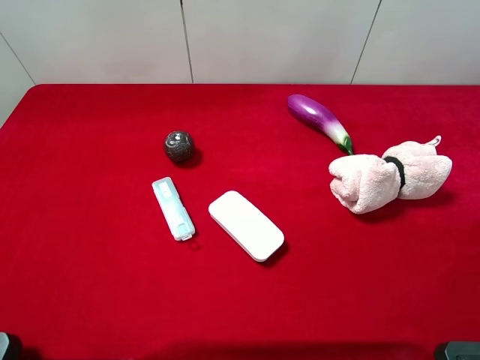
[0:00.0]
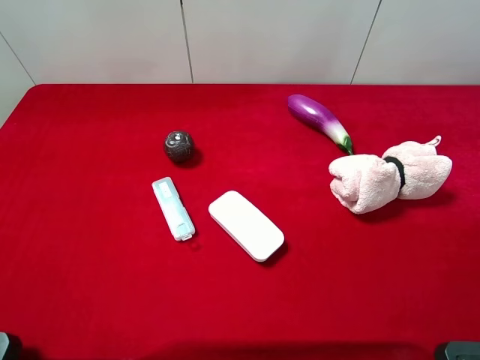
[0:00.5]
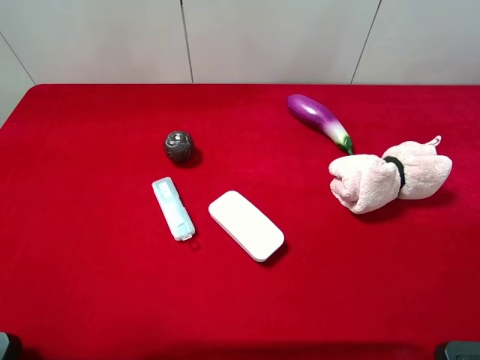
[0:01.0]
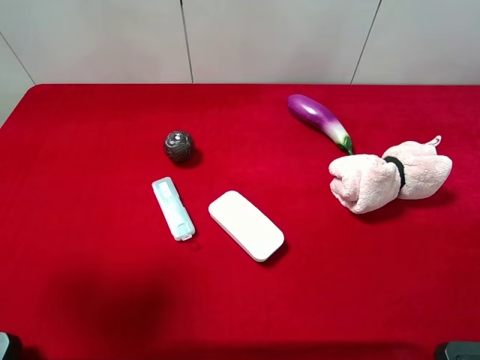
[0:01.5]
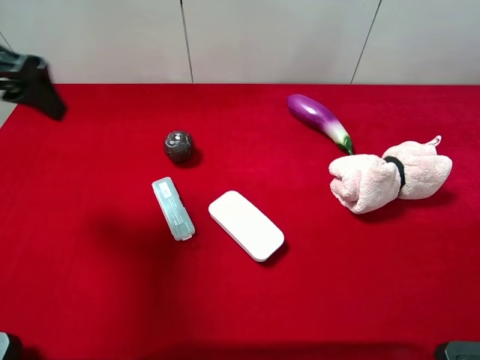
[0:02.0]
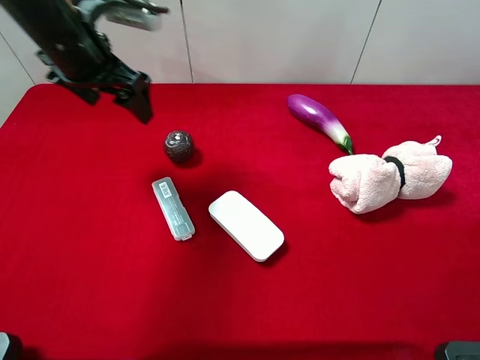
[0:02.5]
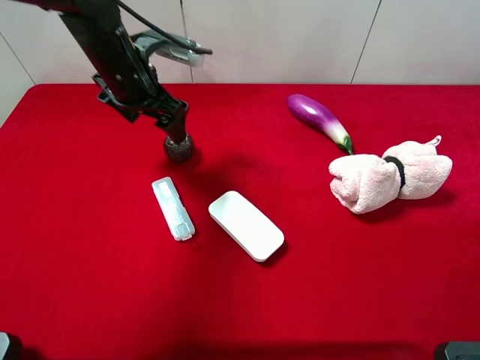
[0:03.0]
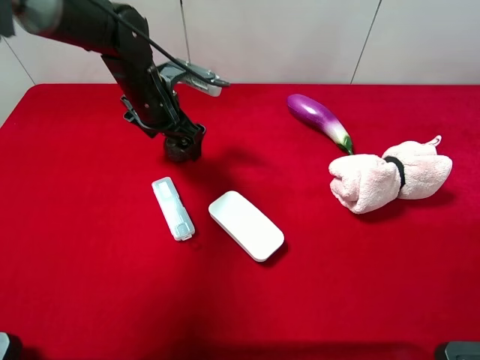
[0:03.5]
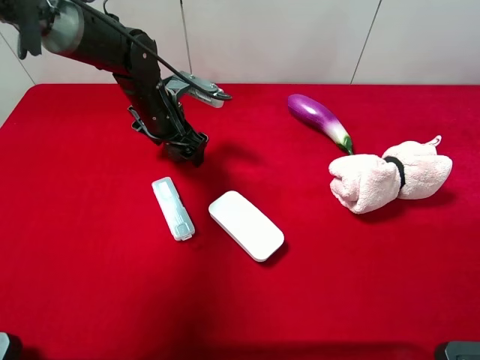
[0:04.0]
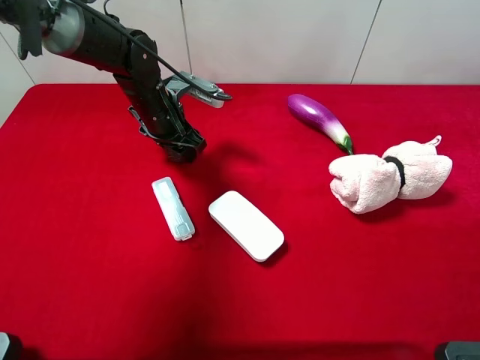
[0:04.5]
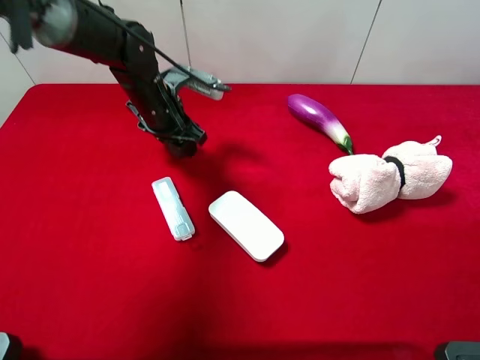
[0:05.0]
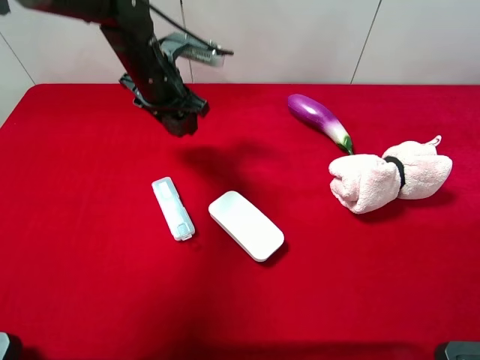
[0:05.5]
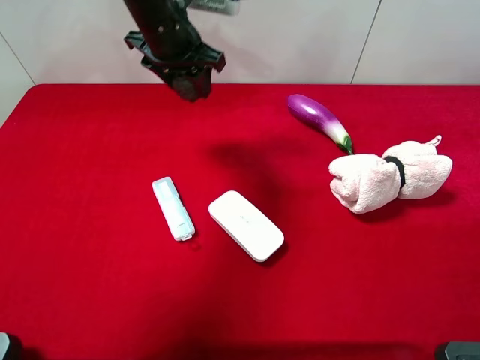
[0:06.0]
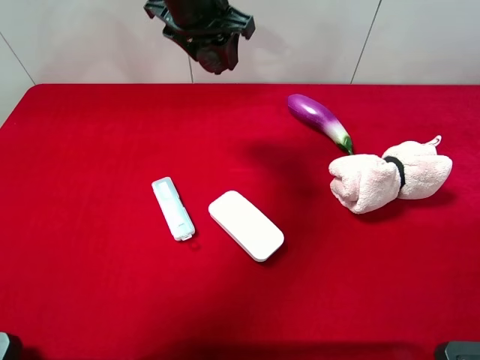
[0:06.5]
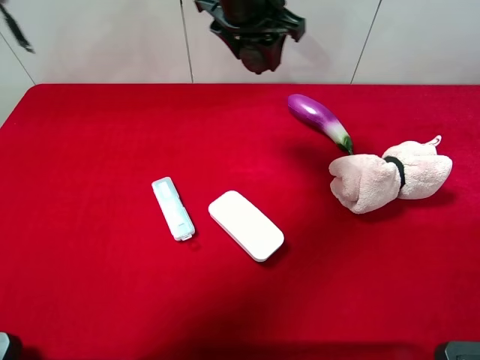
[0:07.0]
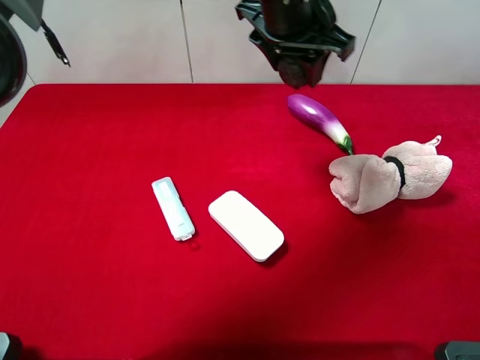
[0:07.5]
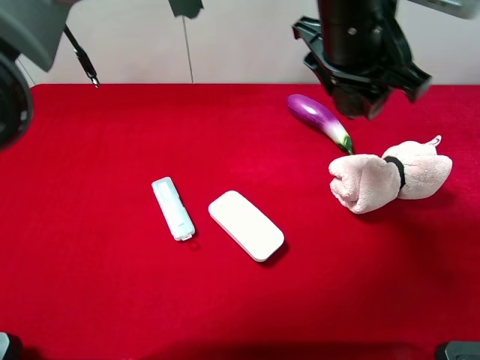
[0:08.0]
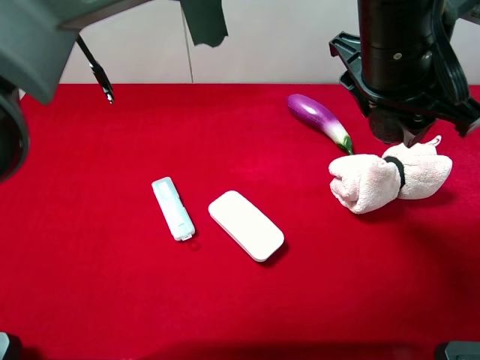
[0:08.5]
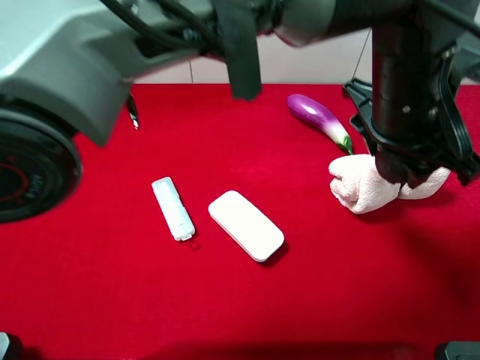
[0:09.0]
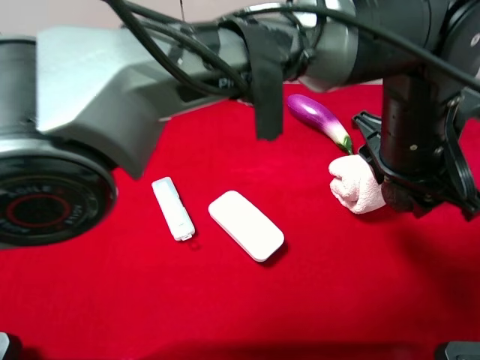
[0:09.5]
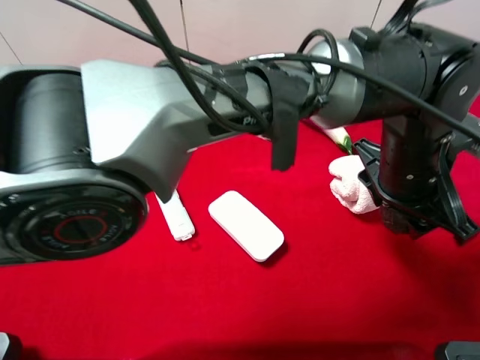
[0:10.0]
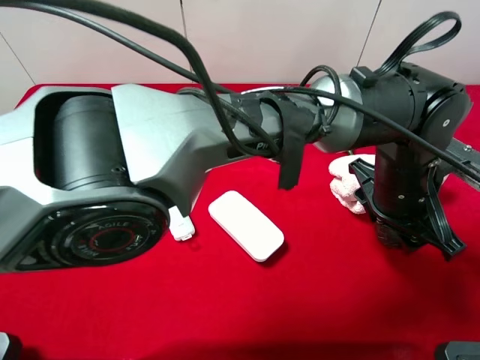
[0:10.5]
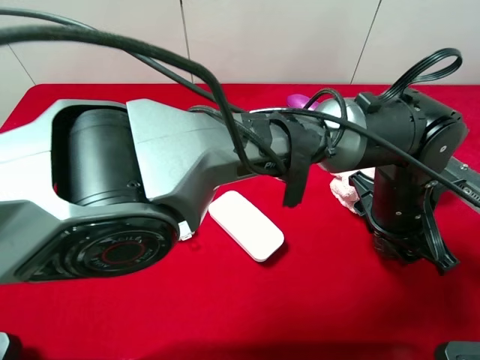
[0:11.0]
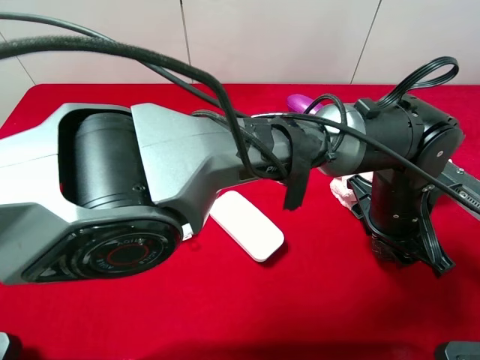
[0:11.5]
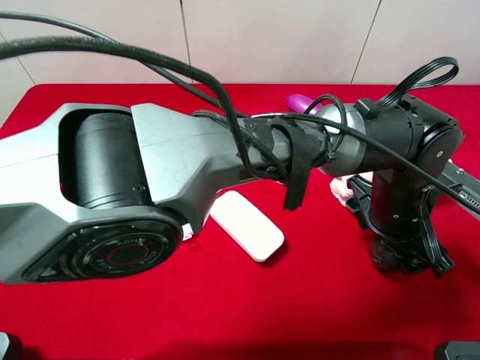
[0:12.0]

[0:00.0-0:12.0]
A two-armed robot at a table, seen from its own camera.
Task of the whole recording: the gripper move the object.
Step, 0:00.0 to 0:04.0: Grasp the mangosteen with the left gripper.
0:00.0 to 0:02.0: The left gripper is displaced forward by roughly 25 cm.
0:02.0 to 0:04.0: The left gripper shifts approximately 25 cm downward, to the right and forward.
0:04.0 to 0:06.0: The left gripper heads upward, covering roughly 15 cm, and closes.
0:06.0 to 0:08.0: The left gripper moves to the right and backward, about 25 cm.
0:08.0 to 0:10.0: The left gripper goes roughly 15 cm downward, to the right and backward.
0:10.0 to 0:12.0: The left gripper travels downward by approximately 5 cm, and opens.

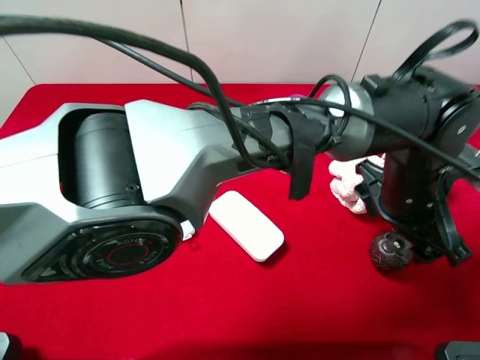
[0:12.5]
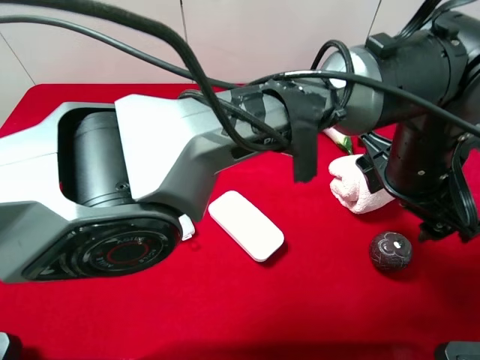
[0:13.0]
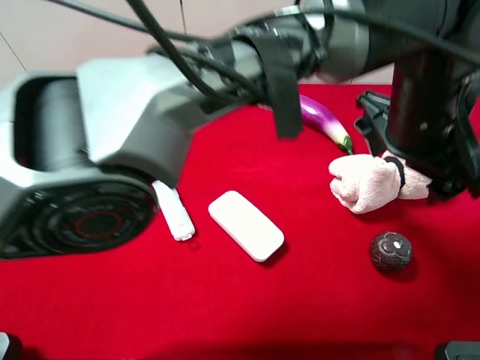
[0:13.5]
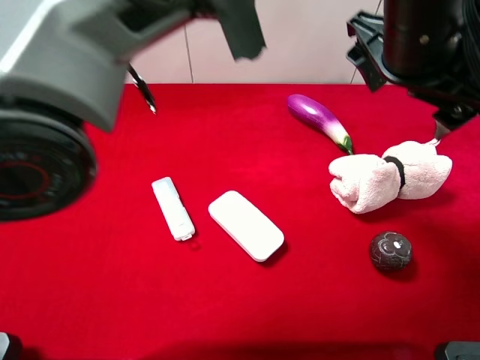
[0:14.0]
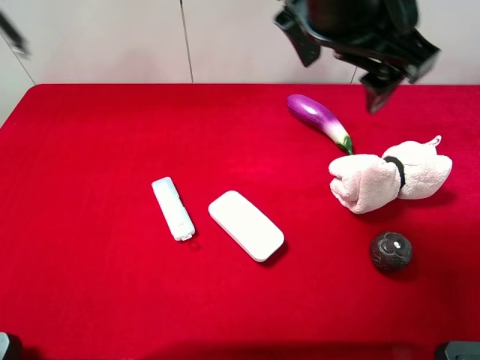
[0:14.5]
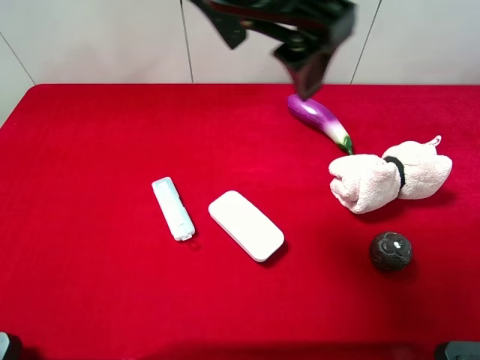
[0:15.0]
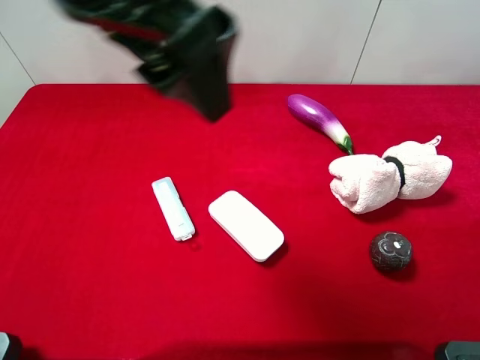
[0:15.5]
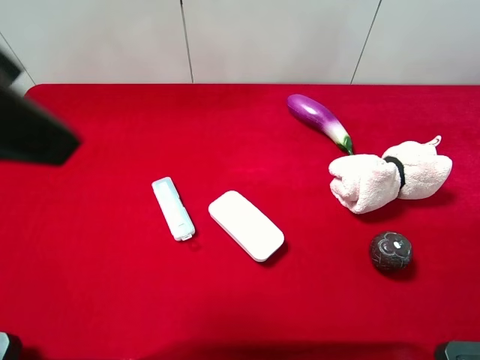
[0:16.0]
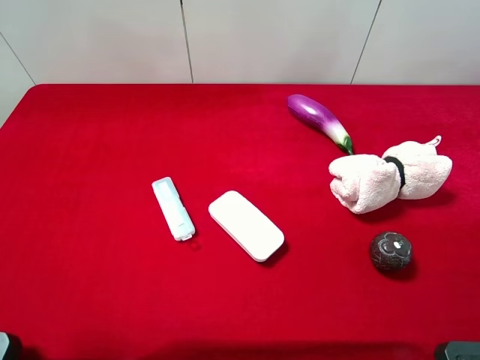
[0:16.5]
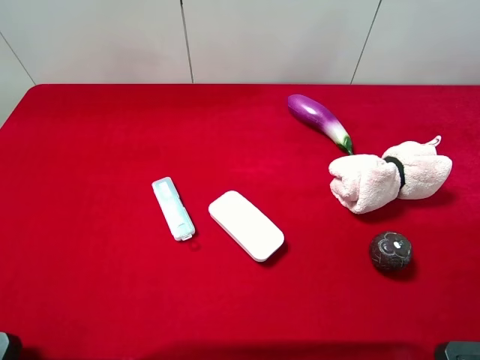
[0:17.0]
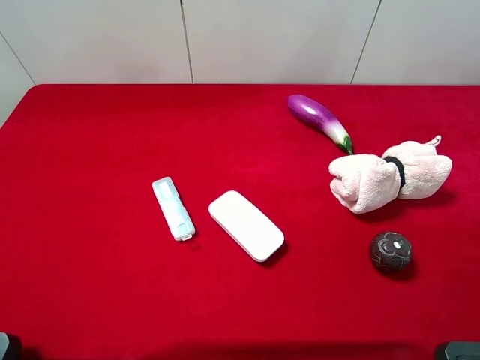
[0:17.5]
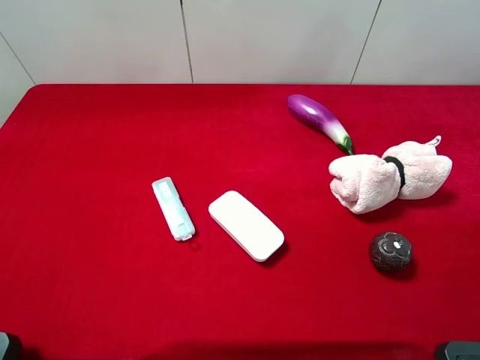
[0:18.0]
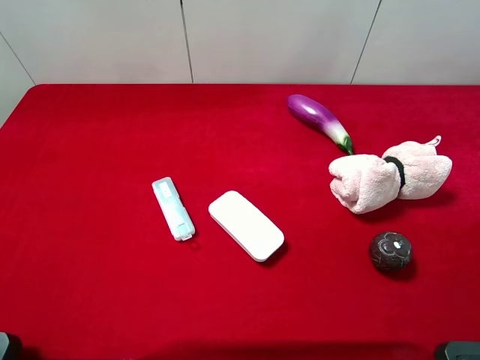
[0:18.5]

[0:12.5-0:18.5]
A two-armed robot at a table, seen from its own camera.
Task of the whole recording: the gripper move the object.
0:12.5 to 0:14.5: The left gripper goes about 25 cm upward and to the left.
0:14.5 to 0:16.5: The left gripper goes about 40 cm to the left and backward.

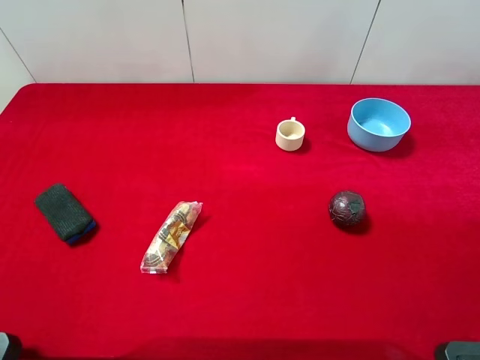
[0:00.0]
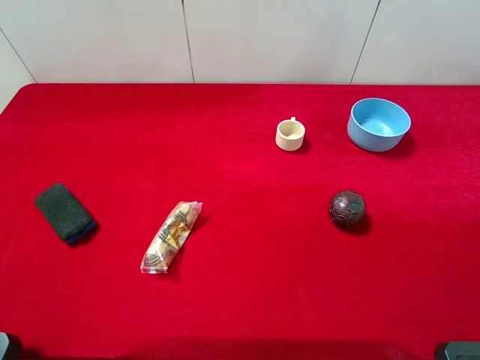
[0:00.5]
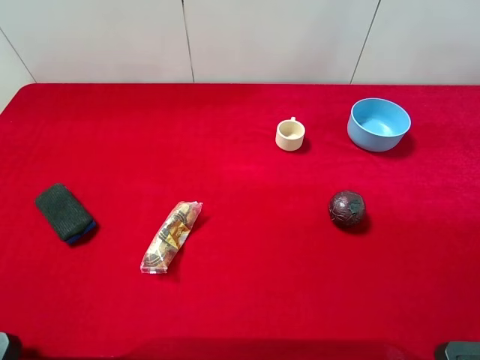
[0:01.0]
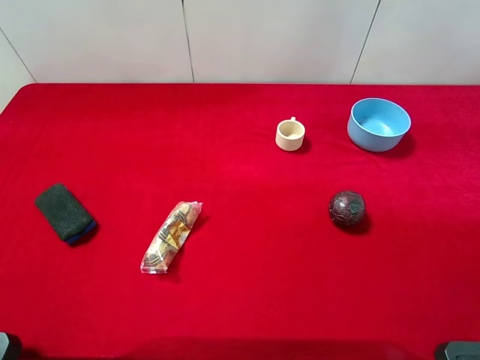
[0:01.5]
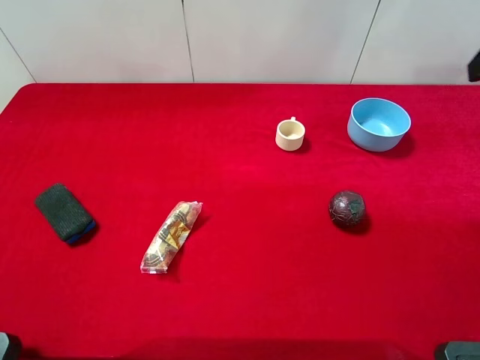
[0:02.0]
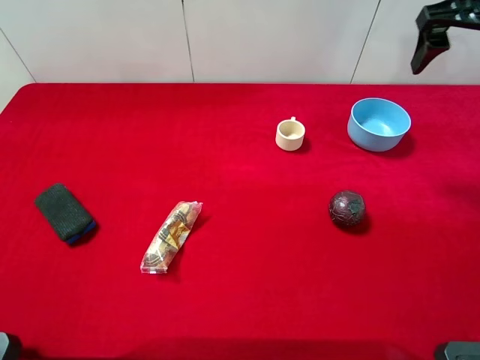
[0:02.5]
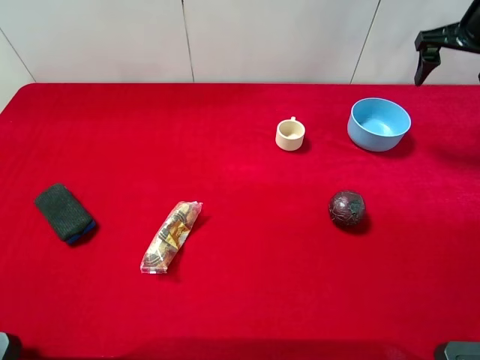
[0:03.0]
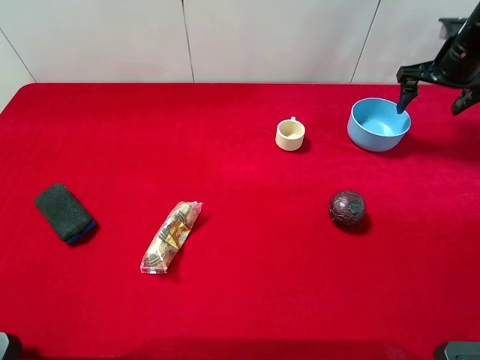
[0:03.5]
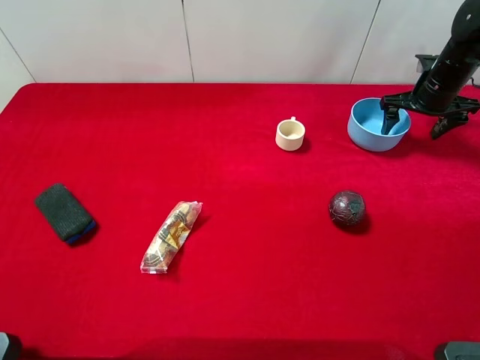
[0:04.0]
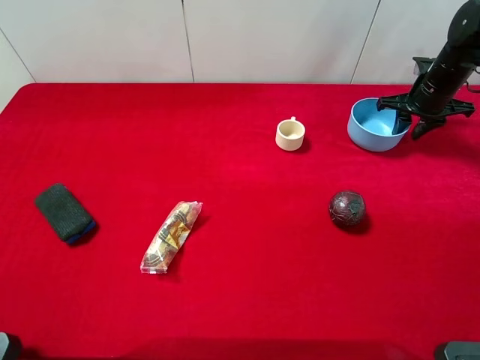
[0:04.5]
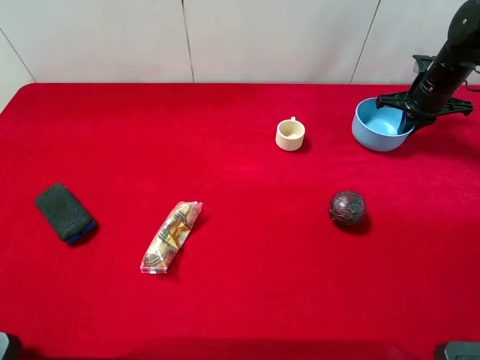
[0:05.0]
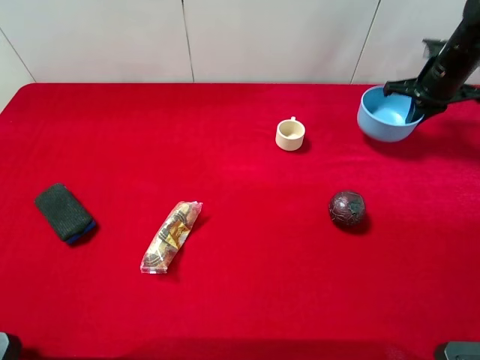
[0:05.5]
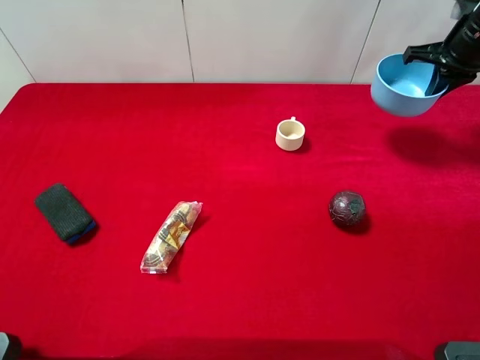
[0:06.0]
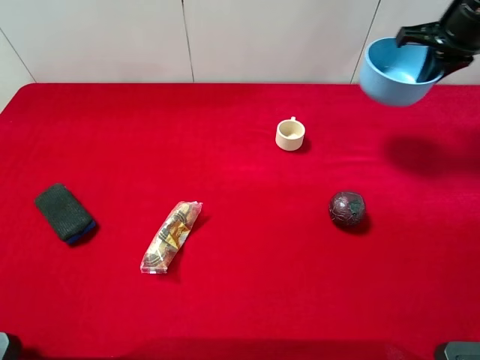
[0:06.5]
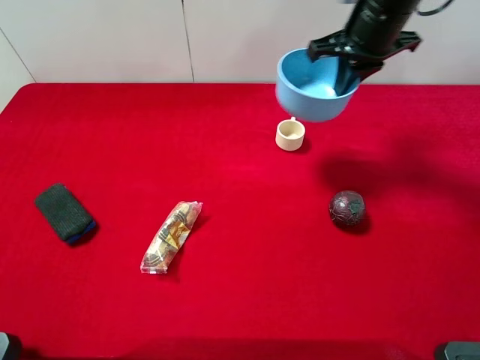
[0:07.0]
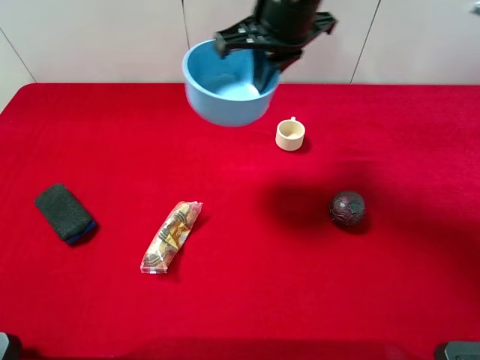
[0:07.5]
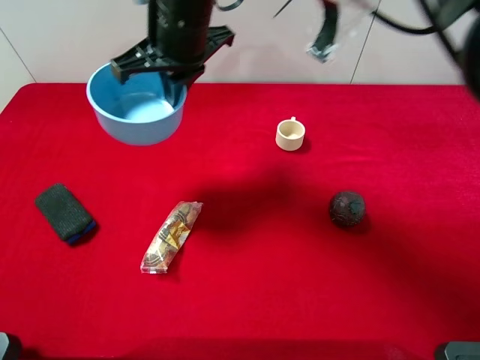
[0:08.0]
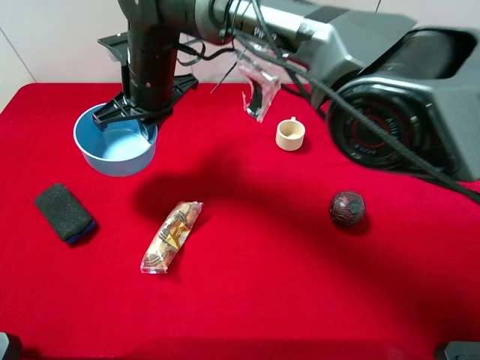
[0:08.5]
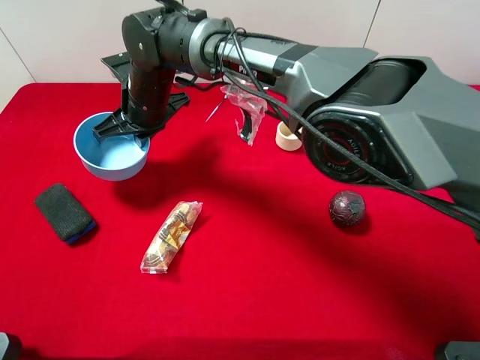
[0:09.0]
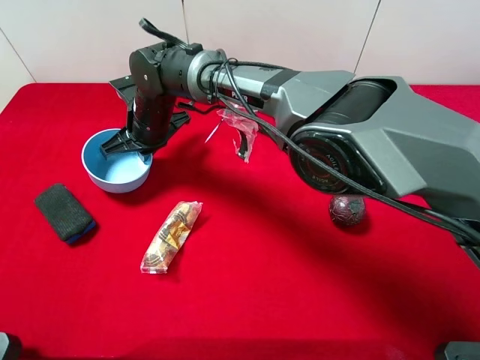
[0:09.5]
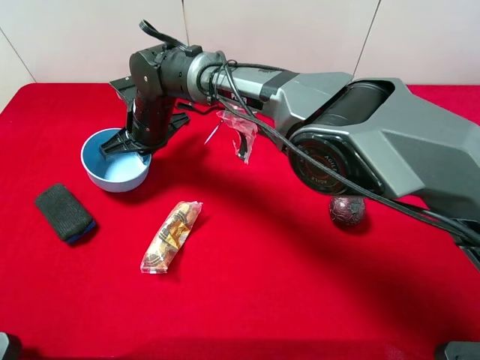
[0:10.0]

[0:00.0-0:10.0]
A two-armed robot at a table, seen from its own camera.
Task of the whole recording: the gripper move the object.
Step, 0:00.0 to 0:05.0: Grasp the blue bowl with the right gripper.
0:02.0 to 0:04.0: The right gripper is displaced downward and forward by about 30 cm.
0:04.0 to 0:06.0: The right gripper is displaced upward by about 10 cm, and closes its fingers.
0:06.0 to 0:08.0: The right gripper heads to the left, covering about 40 cm.
0:08.0 to 0:10.0: The right gripper travels downward and to the left by roughly 20 cm.
